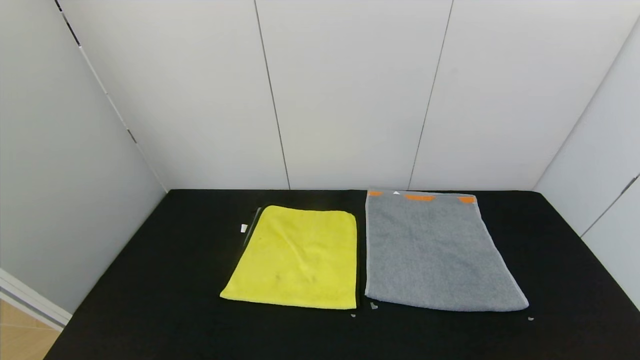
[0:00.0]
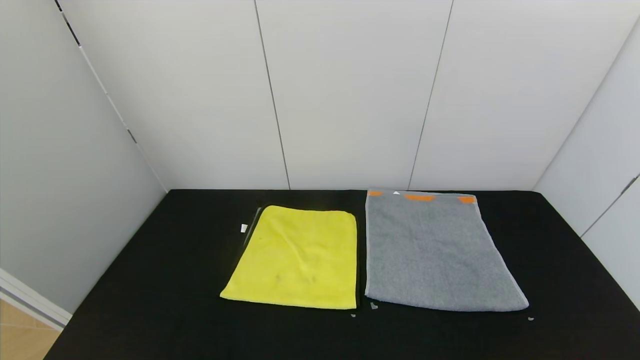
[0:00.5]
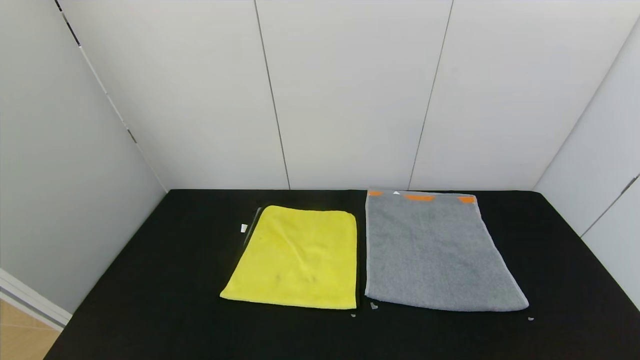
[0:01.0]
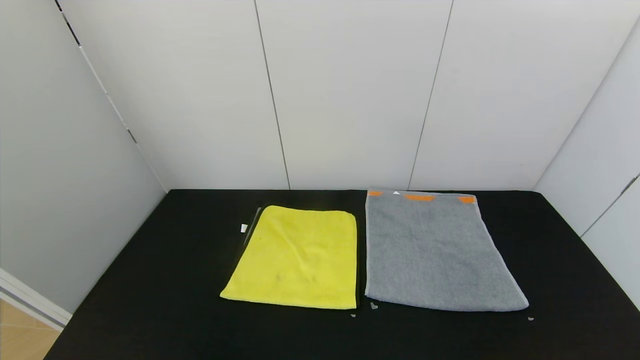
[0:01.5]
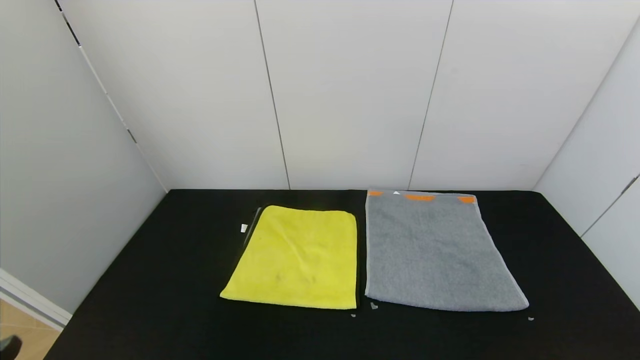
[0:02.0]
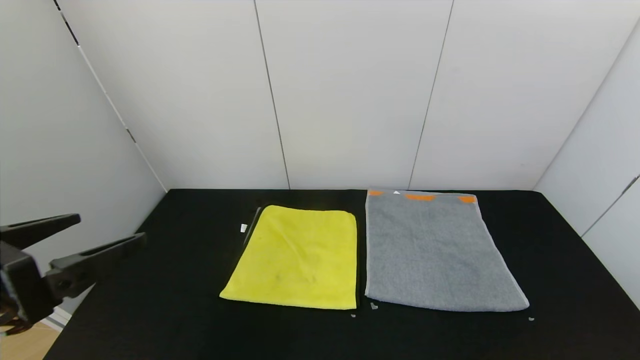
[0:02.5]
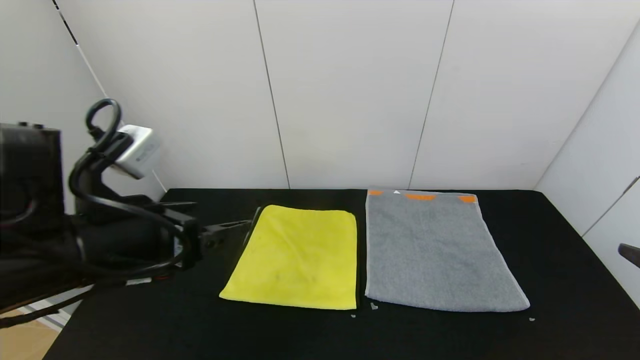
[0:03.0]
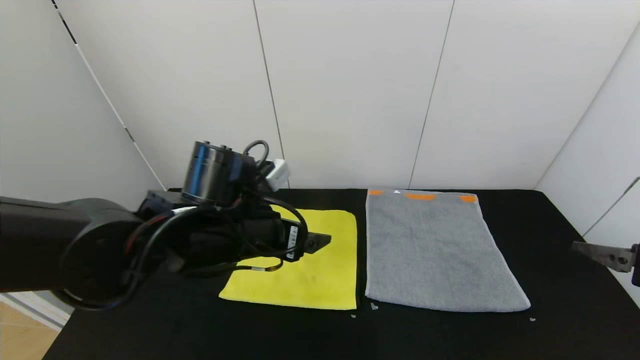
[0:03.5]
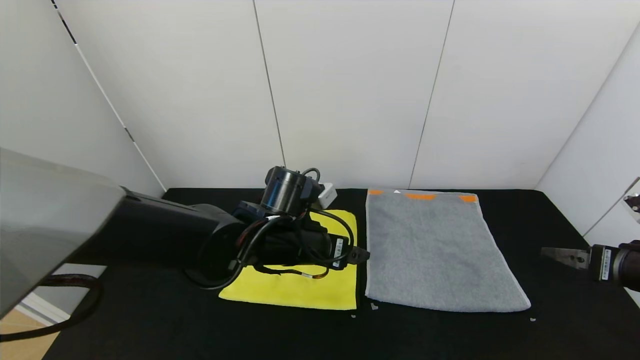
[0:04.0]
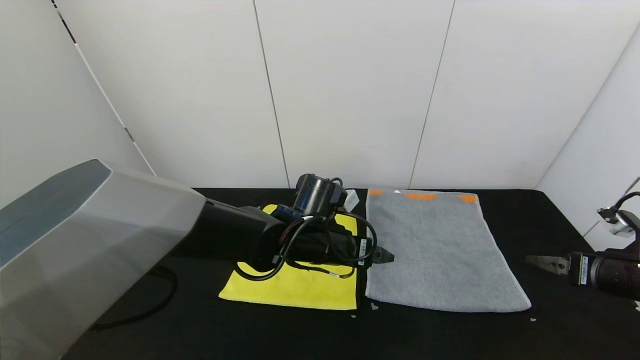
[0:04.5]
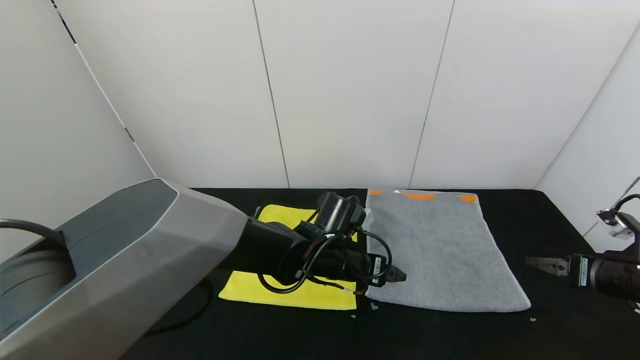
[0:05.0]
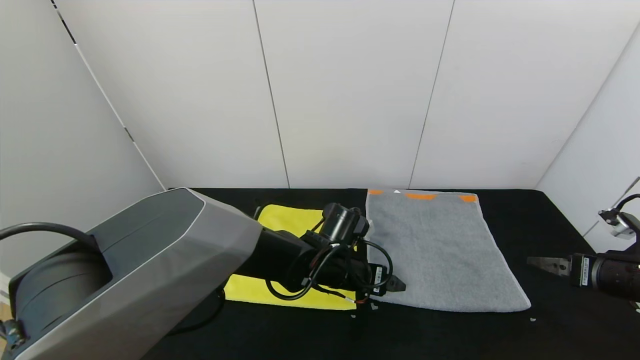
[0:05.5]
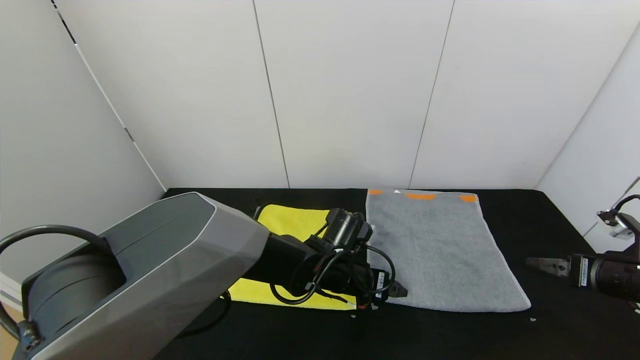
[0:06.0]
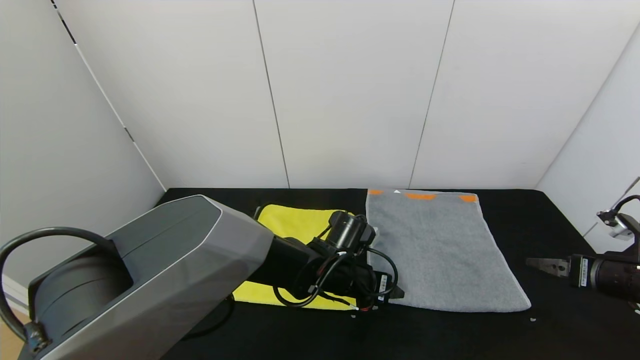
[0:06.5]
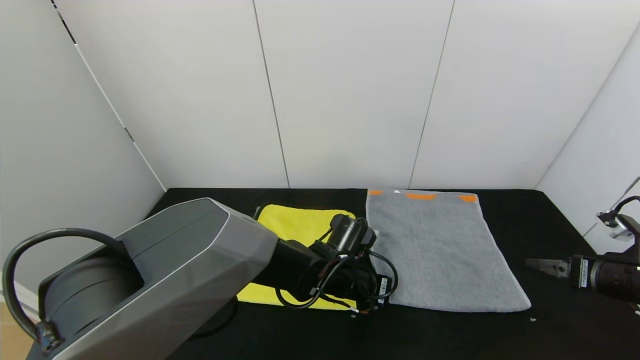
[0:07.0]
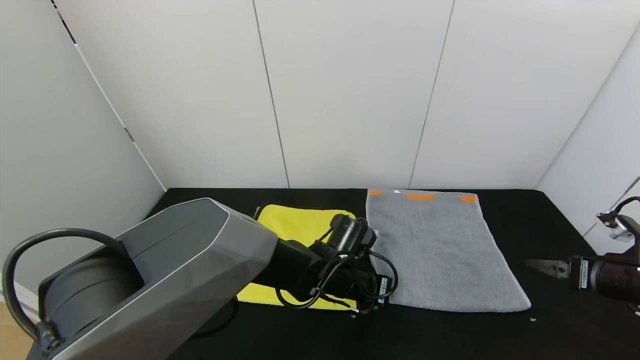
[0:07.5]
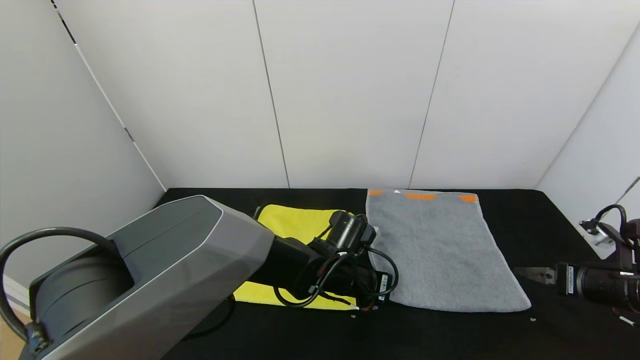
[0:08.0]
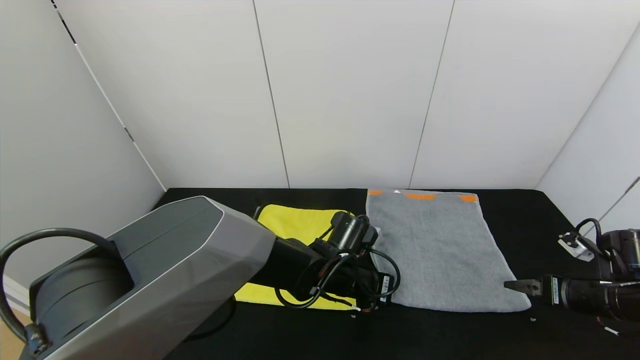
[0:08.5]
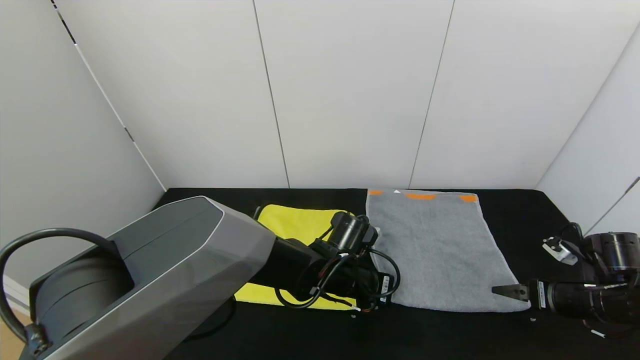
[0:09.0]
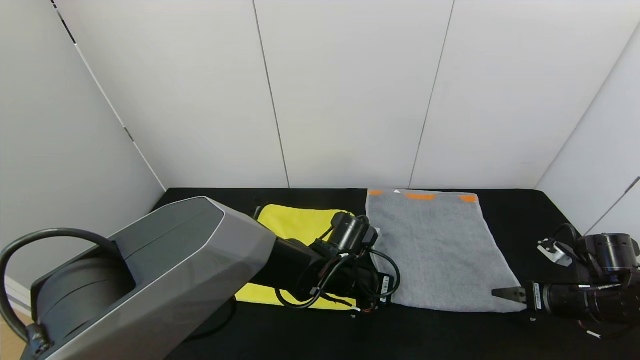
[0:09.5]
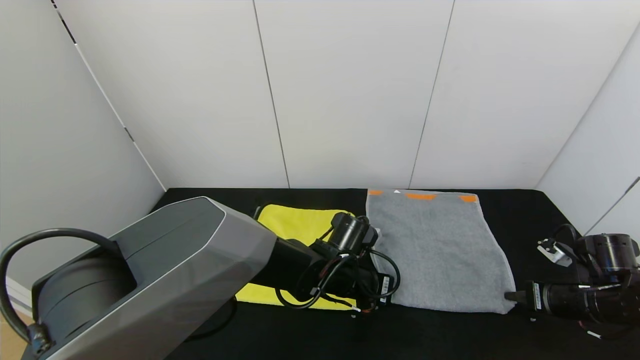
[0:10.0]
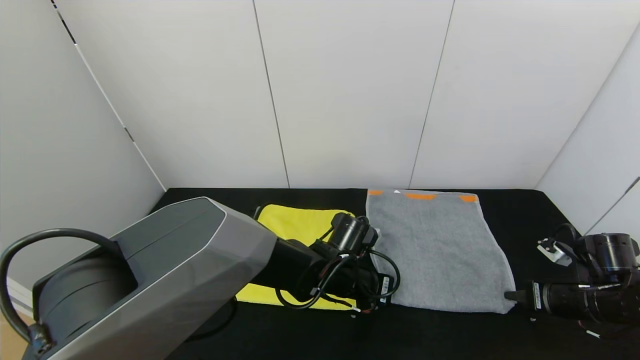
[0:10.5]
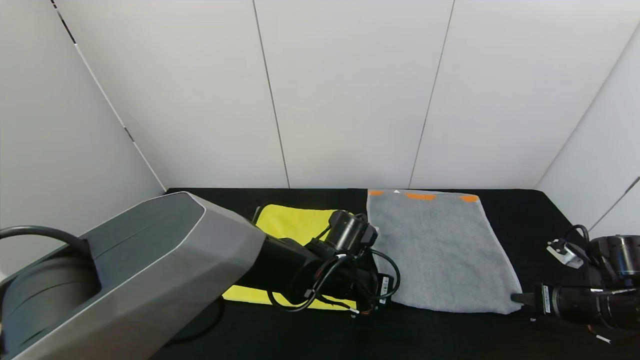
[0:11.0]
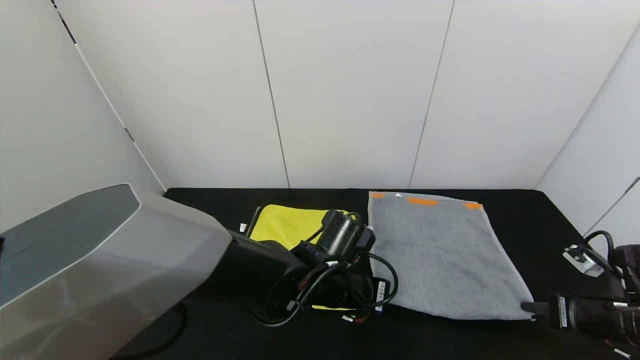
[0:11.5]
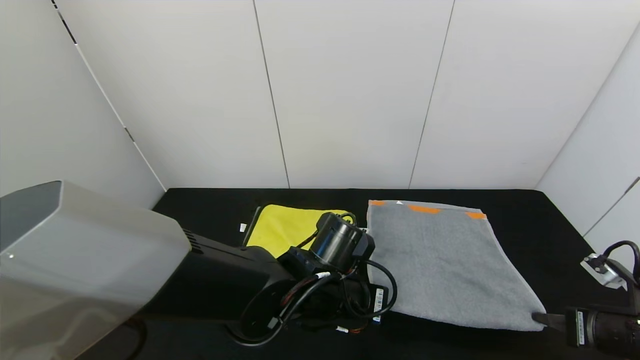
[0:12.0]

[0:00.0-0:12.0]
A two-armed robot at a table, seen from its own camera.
Task of the whole recording: Use the gripper to fold the yellow towel and grey towel in half twice,then put the yellow towel on the grey towel.
0:02.0 to 0:04.0: The right gripper heads forward, covering some 25 cm. Meanwhile the left gripper moves forward and to the right, some 40 cm.
0:04.0 to 0:06.0: The left gripper shifts approximately 10 cm downward and to the right.
0:06.0 to 0:08.0: The left gripper closes up.
0:08.0 to 0:10.0: The right gripper changes place by about 5 cm, and closes.
0:10.0 to 0:12.0: The right gripper moves backward, roughly 10 cm, while the left gripper moves backward and upward, approximately 10 cm.

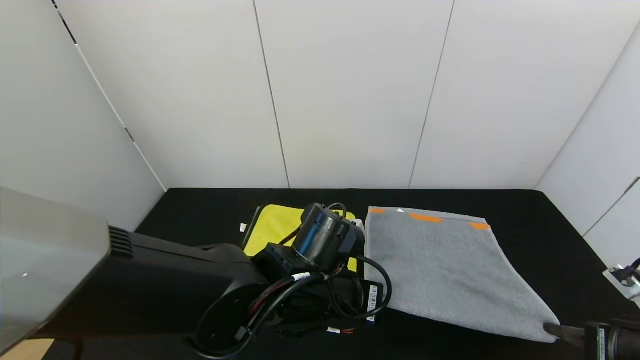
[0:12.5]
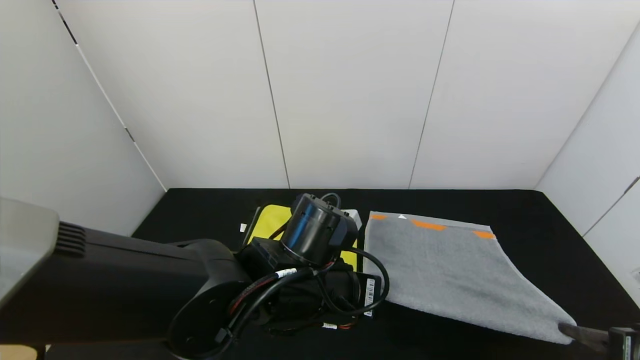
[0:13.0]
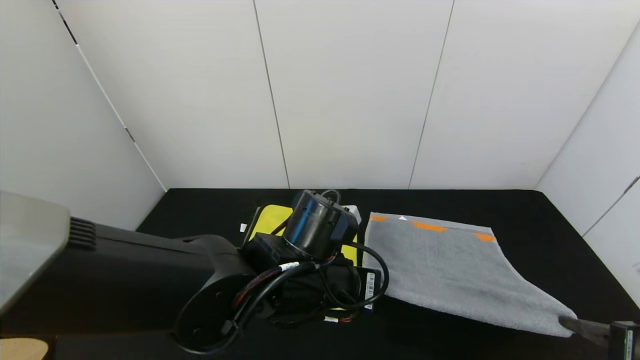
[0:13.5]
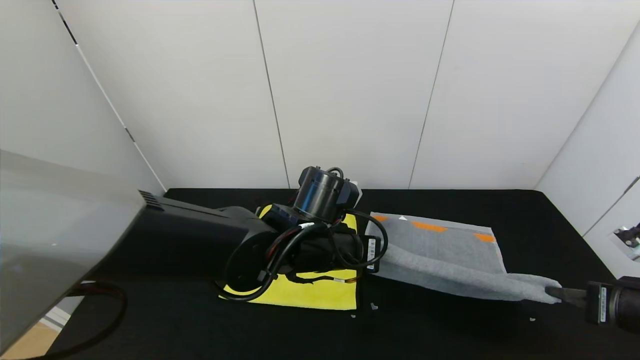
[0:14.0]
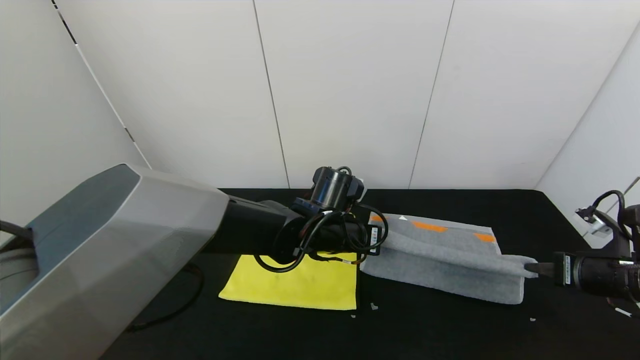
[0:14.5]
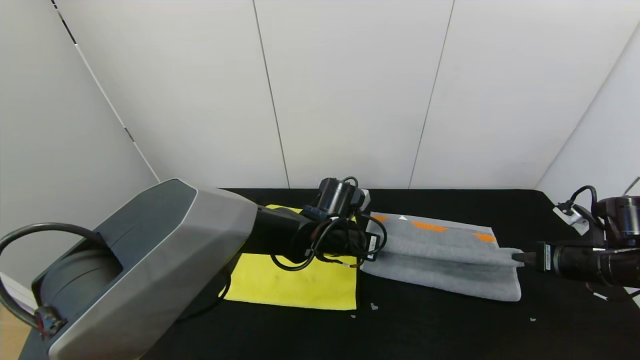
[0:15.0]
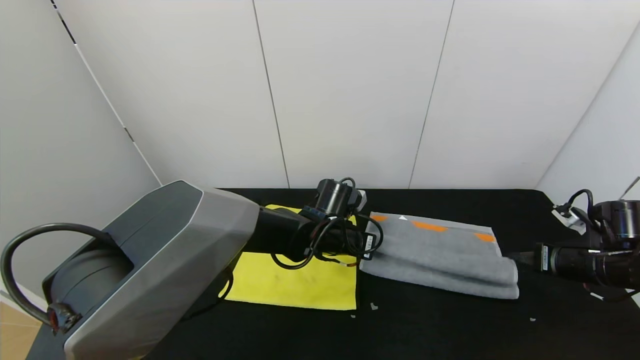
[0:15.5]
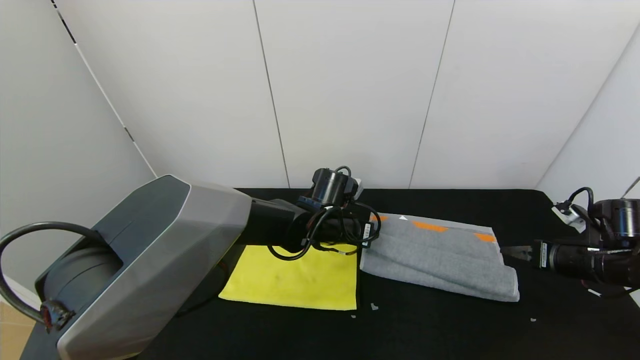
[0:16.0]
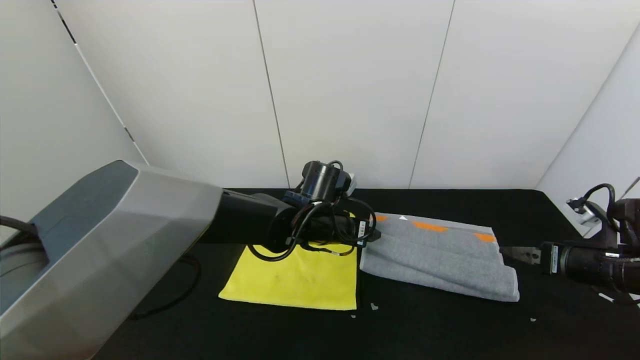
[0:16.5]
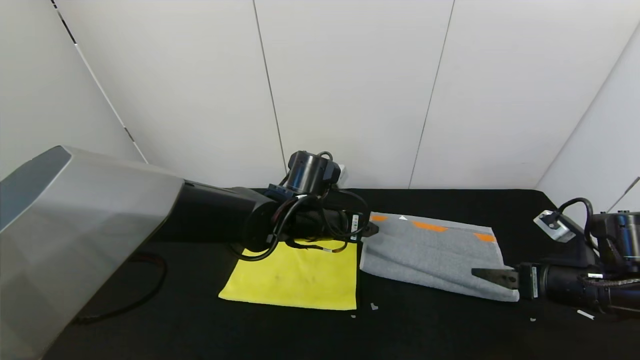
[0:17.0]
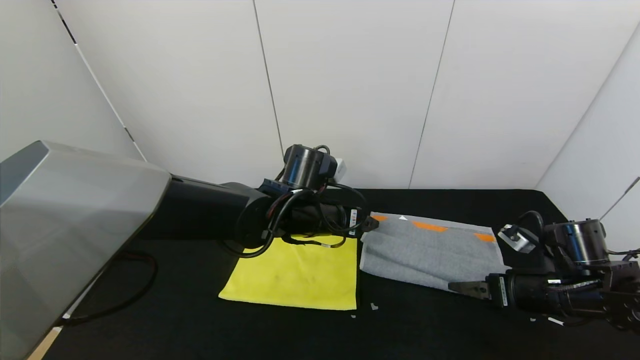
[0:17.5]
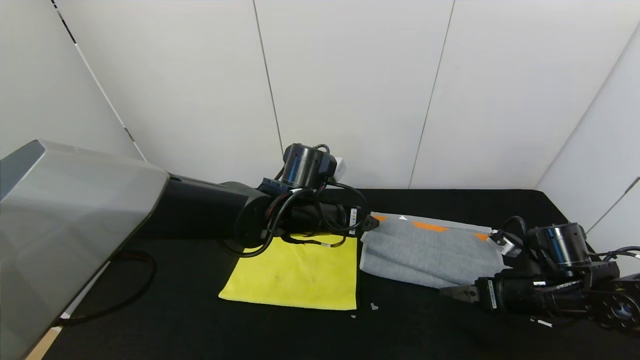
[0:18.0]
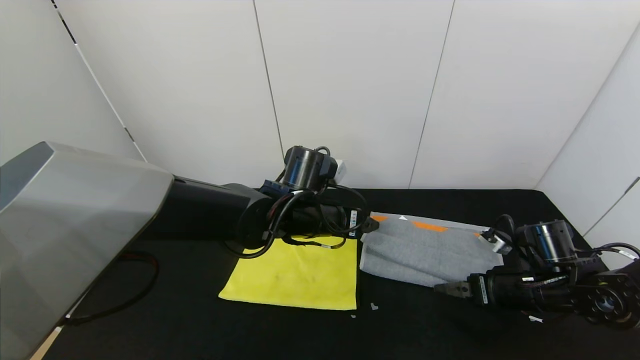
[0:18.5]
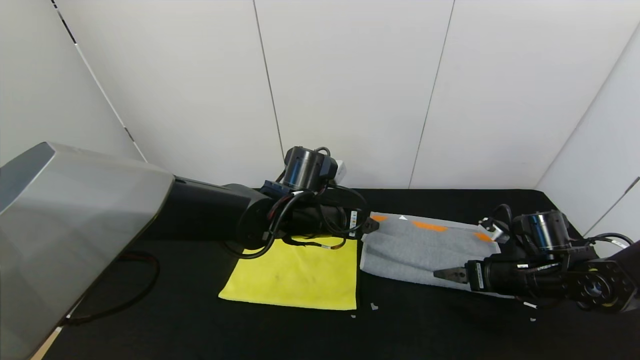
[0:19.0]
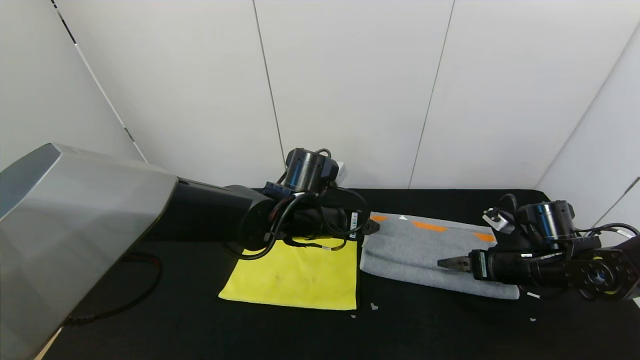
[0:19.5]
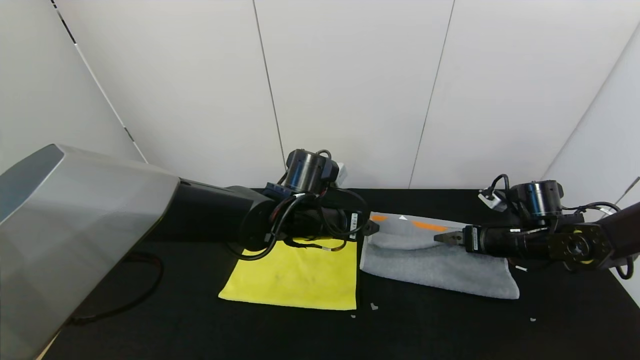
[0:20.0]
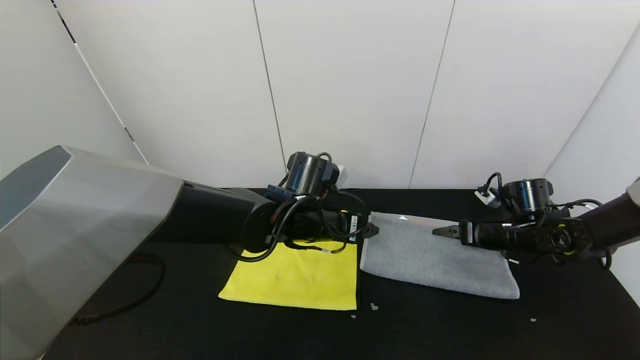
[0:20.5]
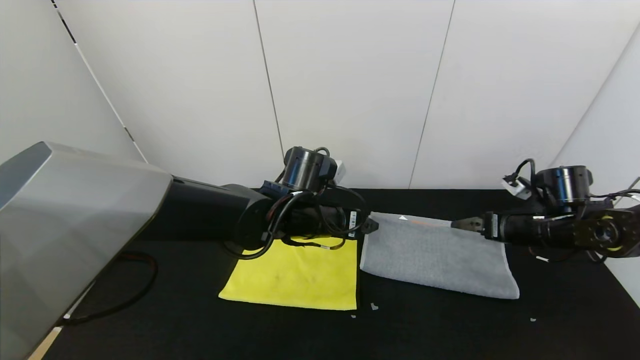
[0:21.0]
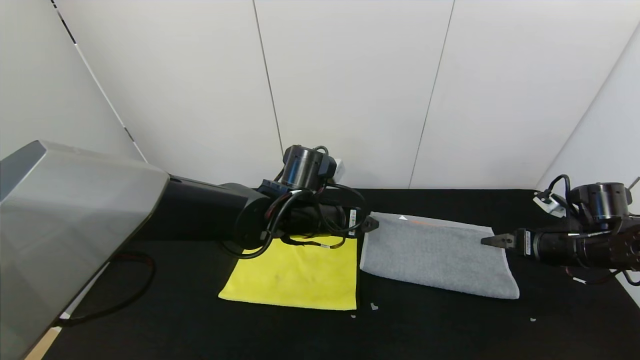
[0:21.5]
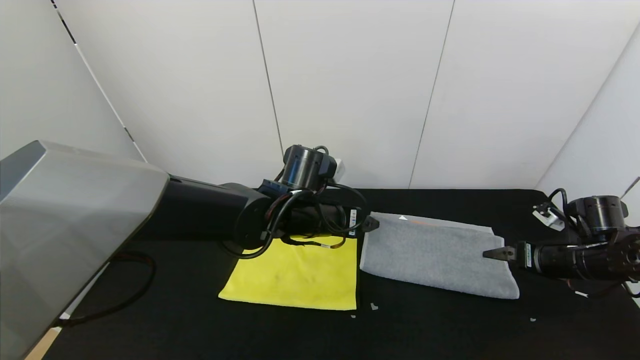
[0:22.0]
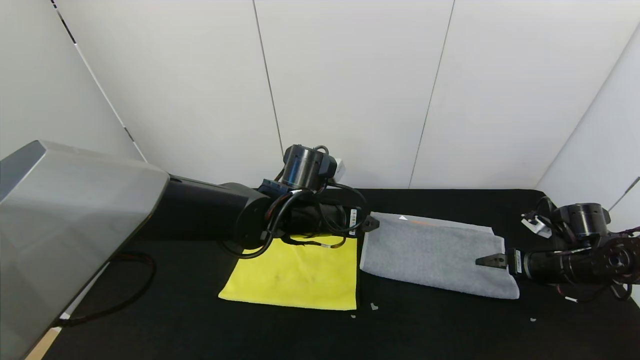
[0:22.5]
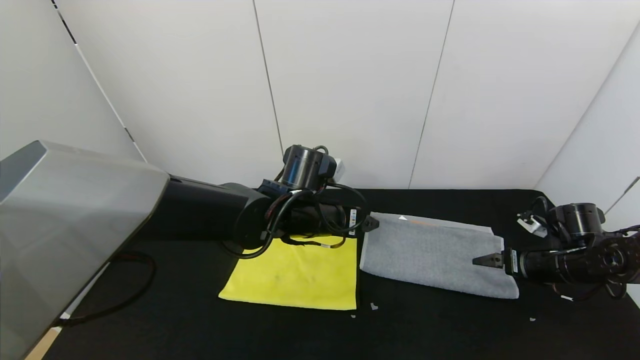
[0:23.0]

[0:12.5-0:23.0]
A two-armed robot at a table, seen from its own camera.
Task of the whole recording: Use the gripper to fold the yellow towel and grey towel in half twice,then put the yellow towel on the grey towel.
Step, 0:12.5 to 0:21.0: Fold the gray towel upwards with the left gripper.
0:12.5 to 0:14.5: The two grippers go some 10 cm forward.
0:14.5 to 0:16.5: The right gripper opens its fingers. The left gripper opens.
0:16.5 to 0:19.0: The right gripper travels to the left by about 10 cm.
0:19.0 to 0:21.0: The right gripper shifts about 5 cm upward.
0:21.0 to 0:23.0: The right gripper travels downward by approximately 5 cm.
